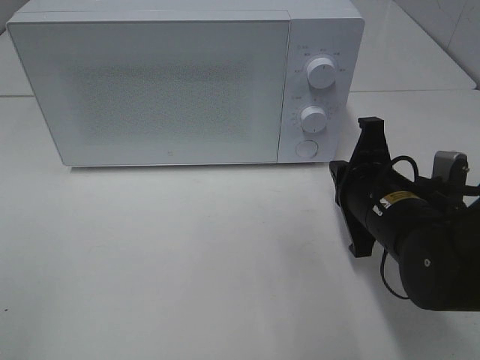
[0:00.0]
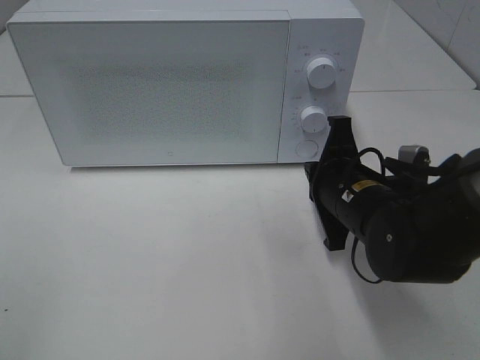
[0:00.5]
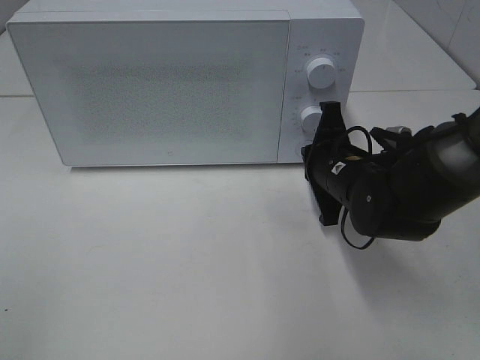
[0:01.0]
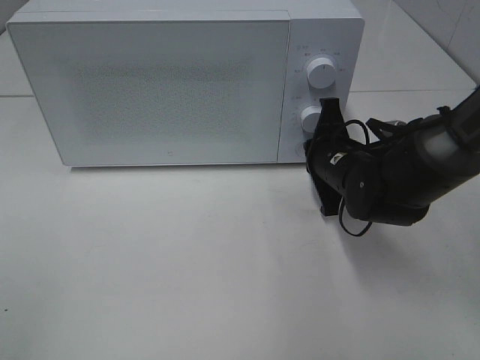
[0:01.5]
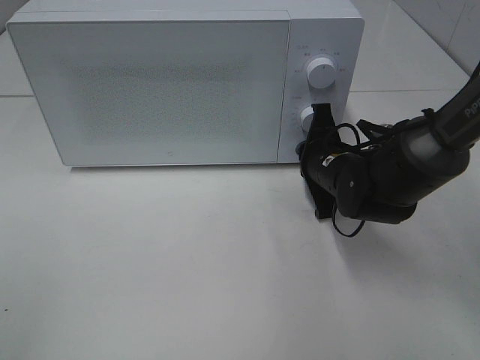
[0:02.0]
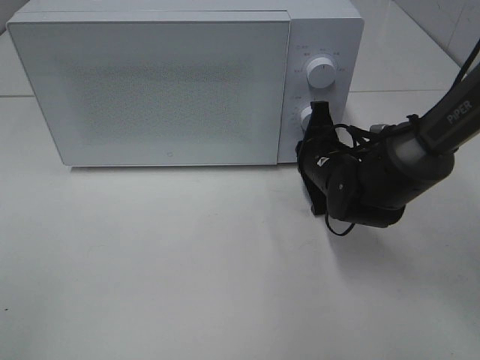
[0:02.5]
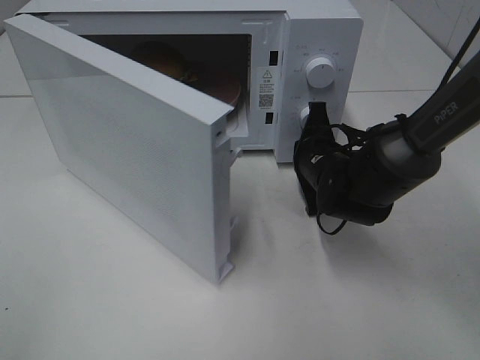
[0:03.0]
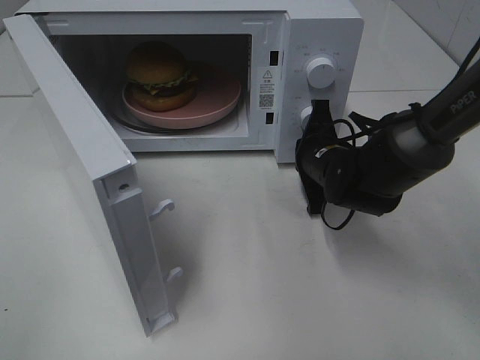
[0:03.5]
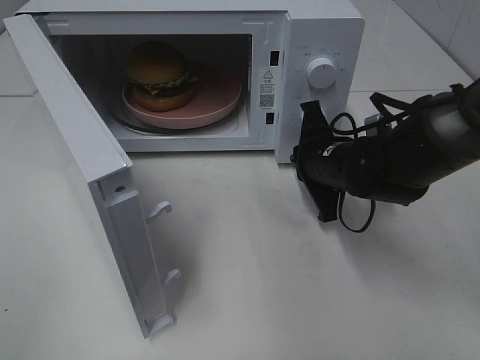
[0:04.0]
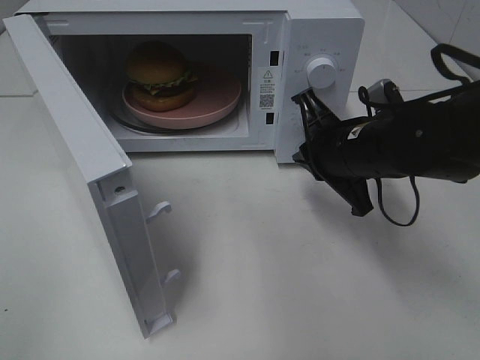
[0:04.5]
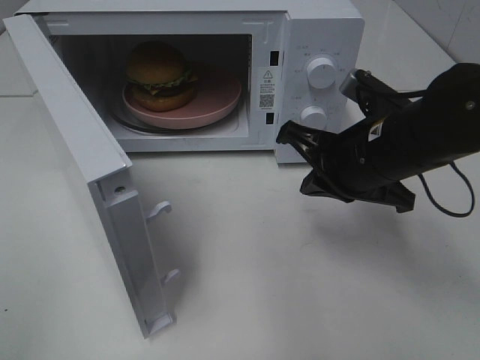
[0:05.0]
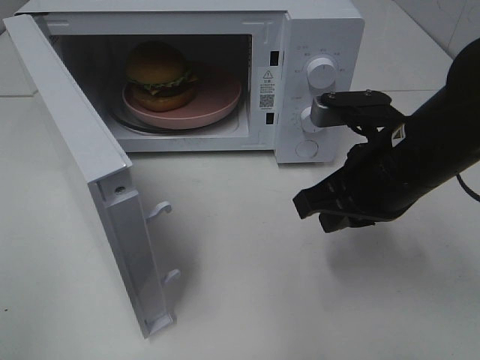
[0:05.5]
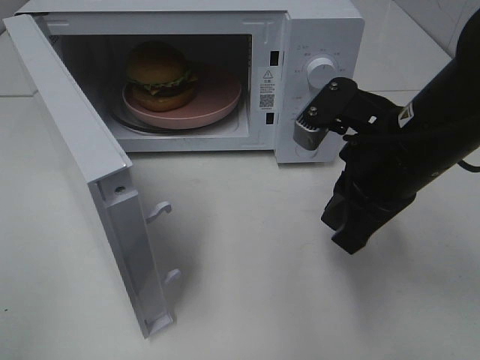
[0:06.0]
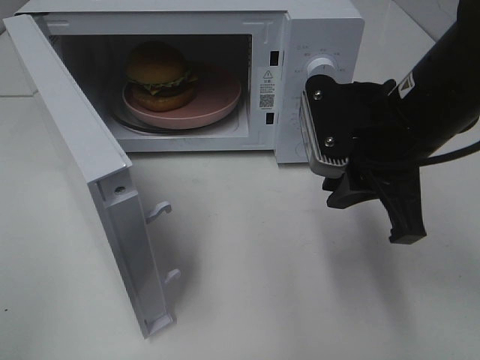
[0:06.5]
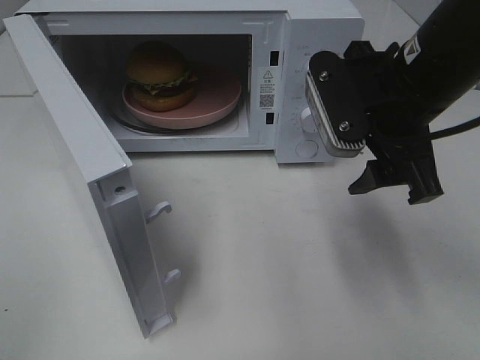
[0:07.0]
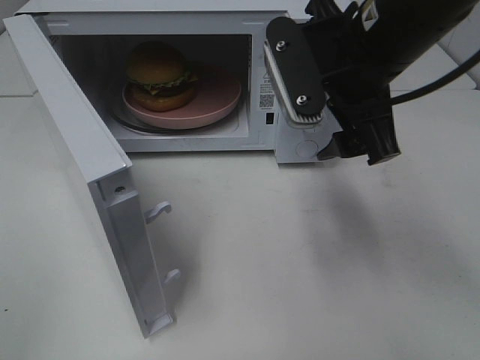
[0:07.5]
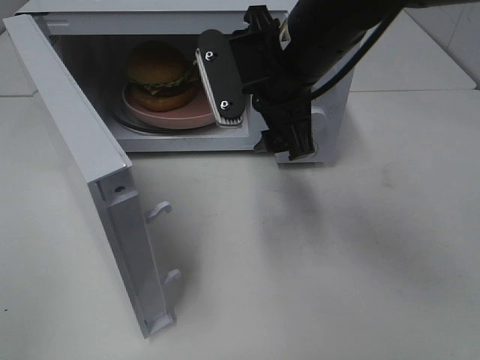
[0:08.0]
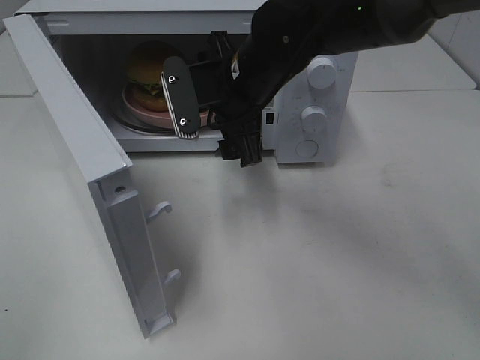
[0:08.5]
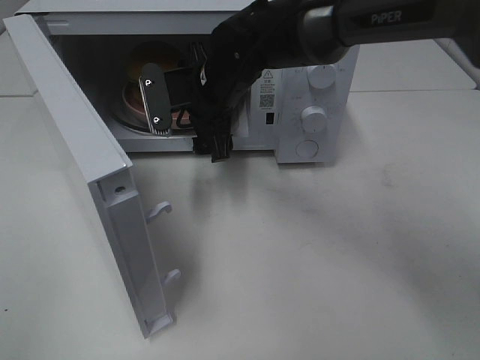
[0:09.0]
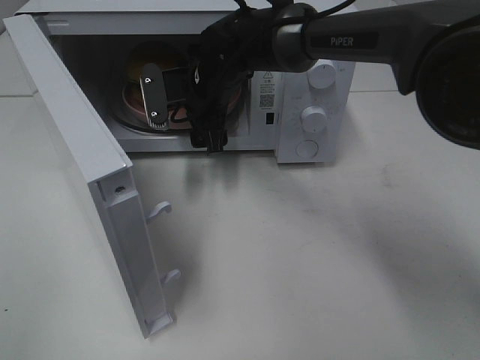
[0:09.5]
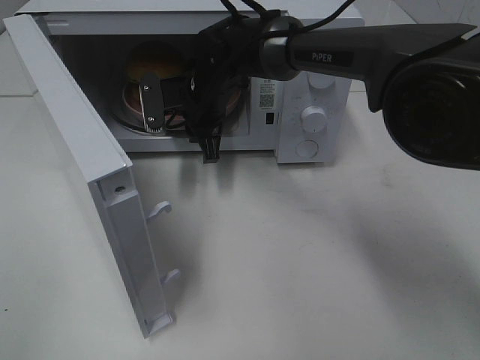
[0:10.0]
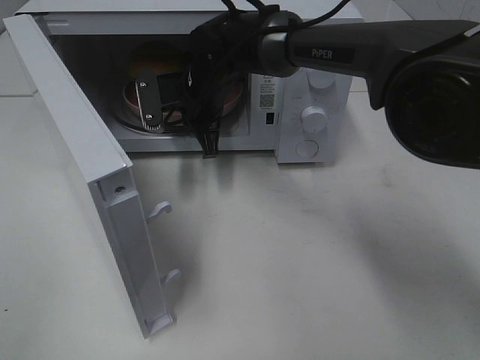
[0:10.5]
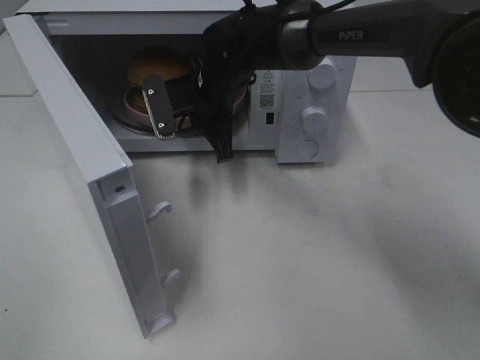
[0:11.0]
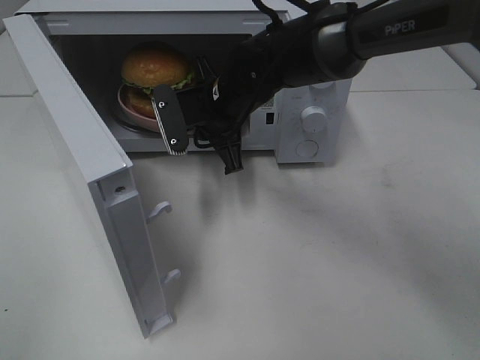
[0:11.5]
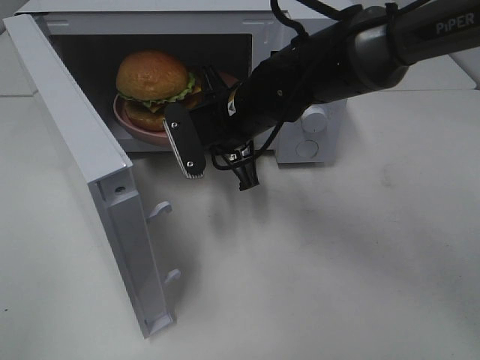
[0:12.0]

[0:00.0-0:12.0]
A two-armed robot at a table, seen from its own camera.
Task of the whole recording: Heat the burger.
Step, 0:00.0 to 0:04.0: Right hand: press the switch.
Step, 0:04.5 to 0:10.0: Right hand: grab the plate with the hamburger.
0:00.0 to 0:02.0: The right gripper moves forward, some 10 cm.
0:04.0 to 0:06.0: The right gripper moves upward and backward, roughly 15 cm.
0:06.0 to 0:08.0: The right gripper goes approximately 10 cm to the left and forward, and opens its fingers.
0:08.0 to 0:10.0: The right gripper is displaced forward, downward and to the left by roughly 20 cm, and closes.
0:10.0 to 0:12.0: The right gripper travels backward by about 10 cm.

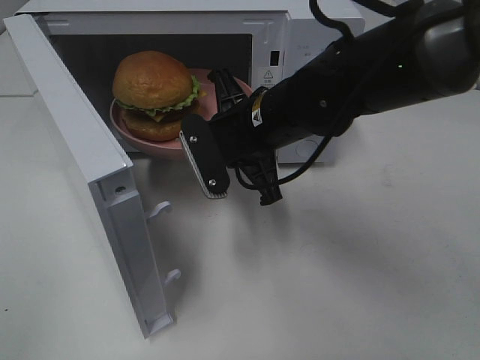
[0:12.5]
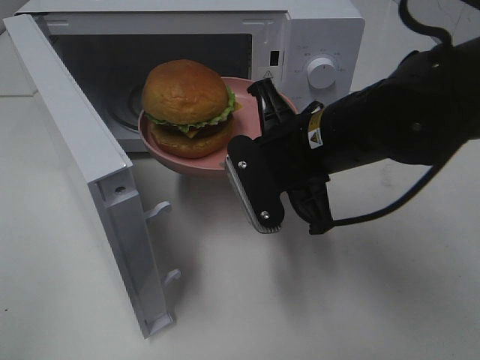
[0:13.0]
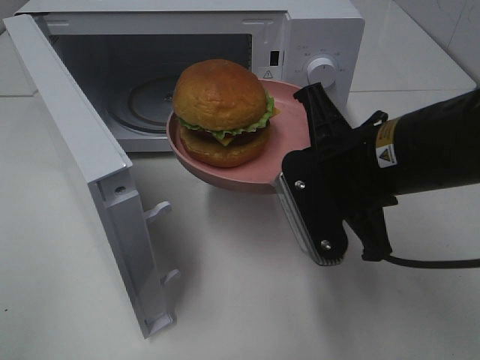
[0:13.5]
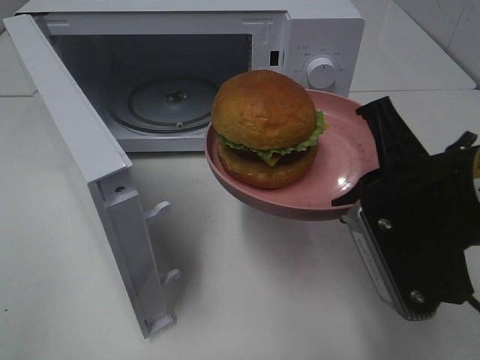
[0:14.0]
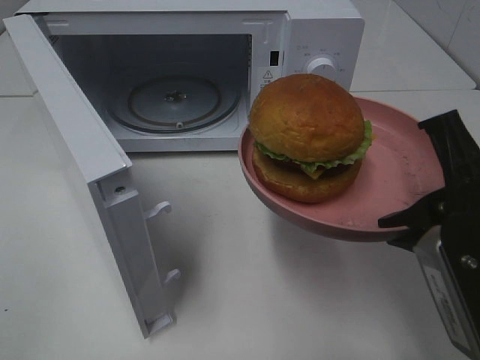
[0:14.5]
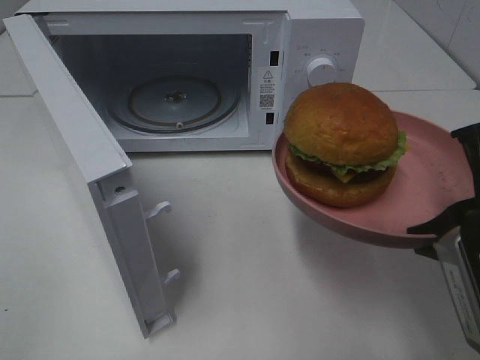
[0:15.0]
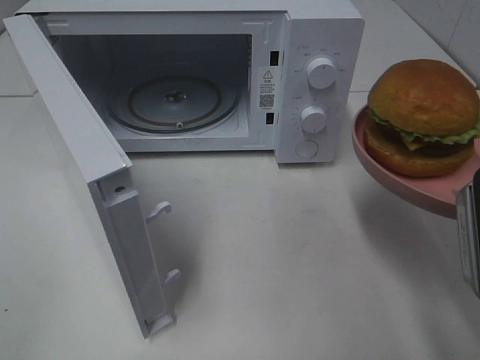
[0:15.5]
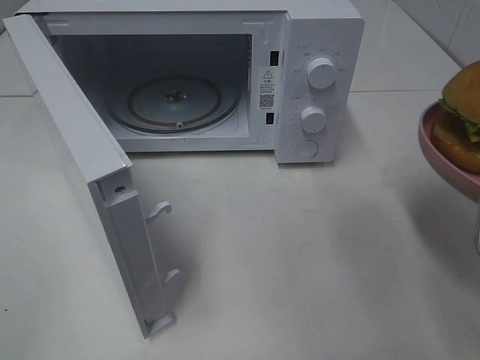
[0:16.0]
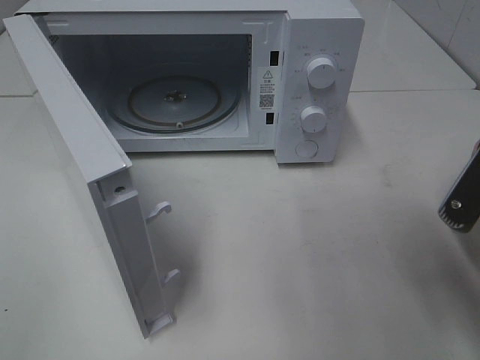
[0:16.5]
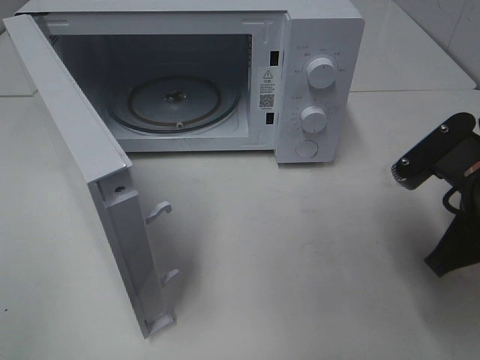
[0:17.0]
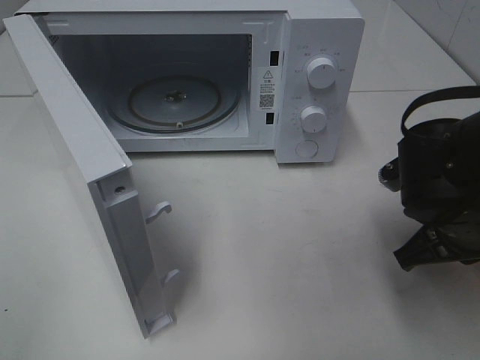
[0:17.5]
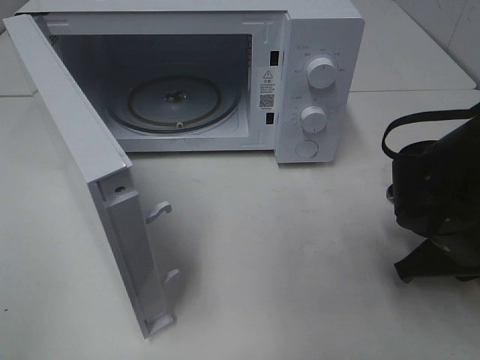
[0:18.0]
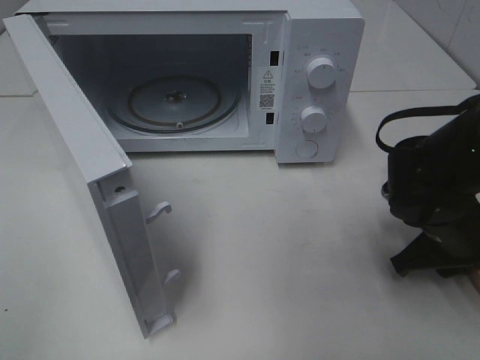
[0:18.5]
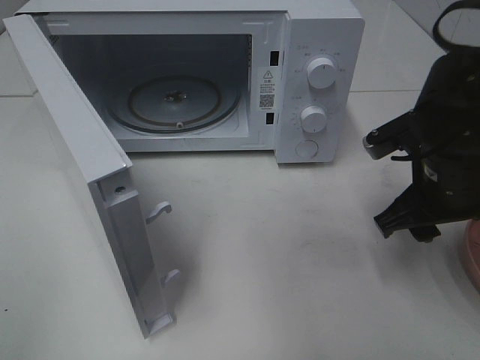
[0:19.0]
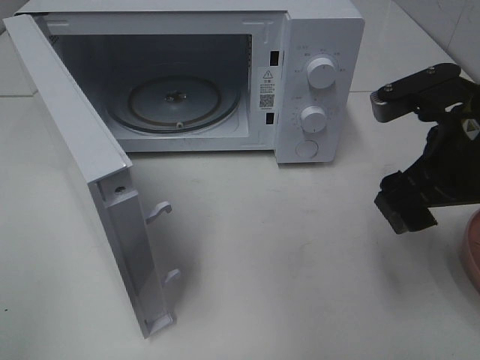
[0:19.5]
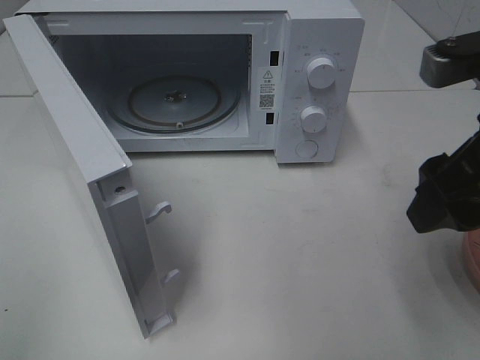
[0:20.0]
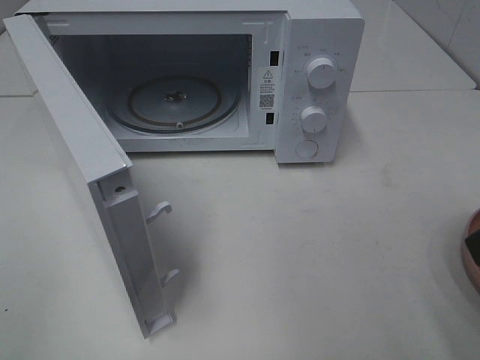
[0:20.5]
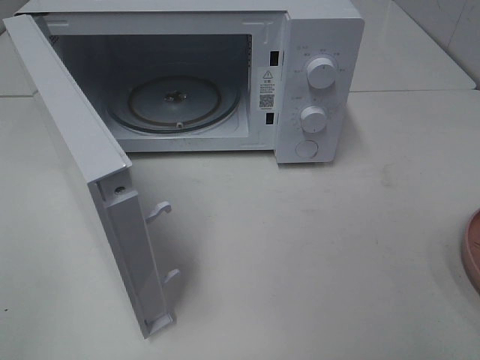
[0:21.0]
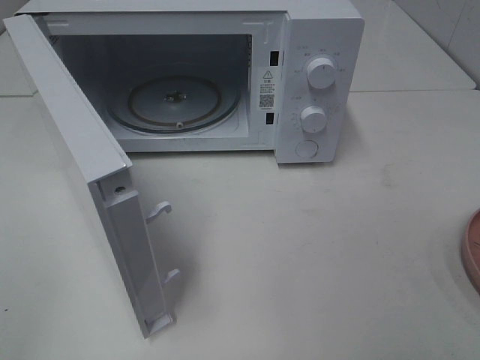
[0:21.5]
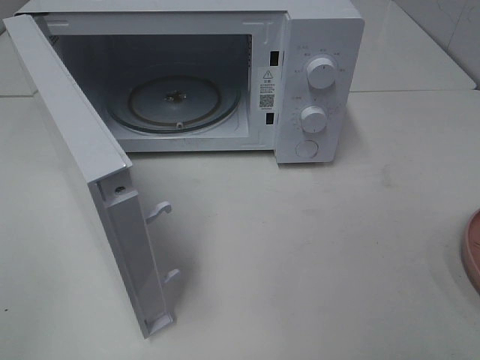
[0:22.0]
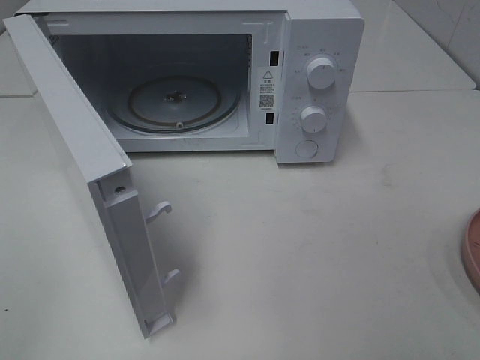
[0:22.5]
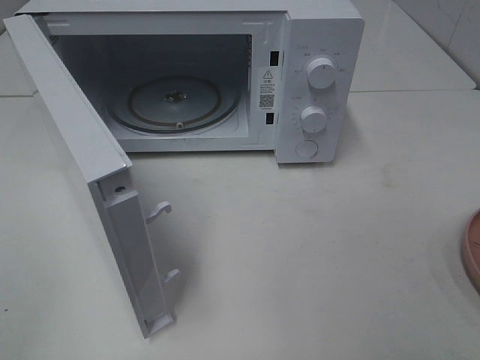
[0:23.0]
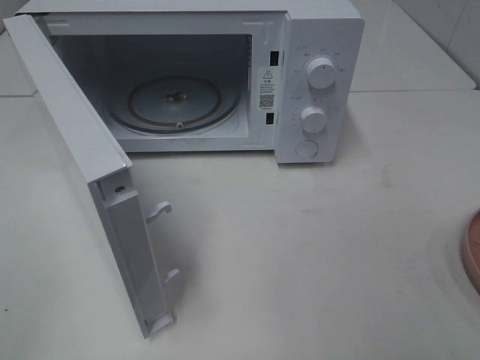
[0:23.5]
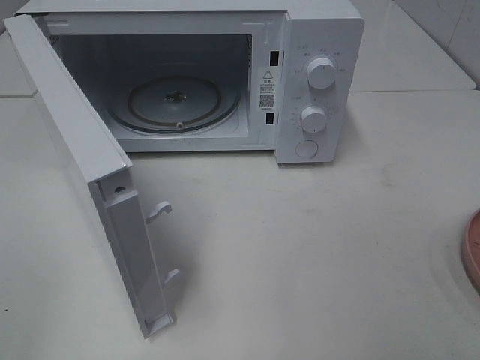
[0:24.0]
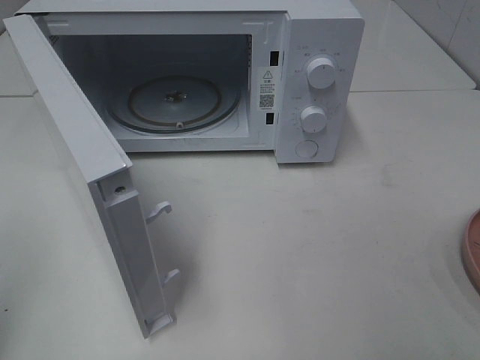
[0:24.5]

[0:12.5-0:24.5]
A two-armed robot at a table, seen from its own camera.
Task of the whole recording: Heat the burger.
Step, 0:12.5 to 0:18.5: Right hand: place the plate on the table.
0:12.5 to 0:14.5: The right gripper moves backward and to the right, approximately 25 cm.
0:14.5 to 0:16.5: The right gripper shifts by roughly 5 cm.
0:16.5 to 0:18.5: The right gripper heads downward and forward, covering approximately 15 cm.
0:18.5 to 0:20.5: The right gripper moves upward and backward, about 25 cm, and opens up.
0:20.5 to 0:22.5: The right gripper heads backward and to the right, covering about 15 cm.

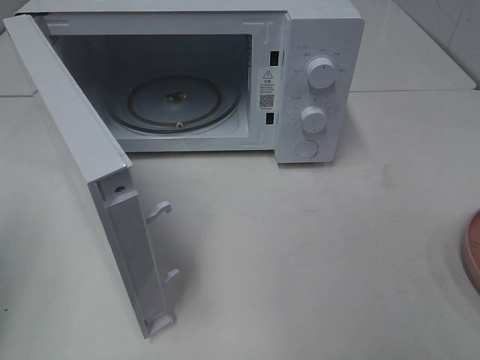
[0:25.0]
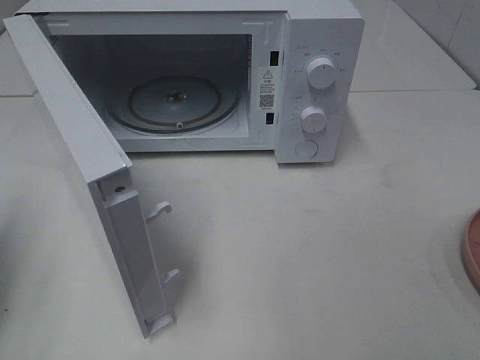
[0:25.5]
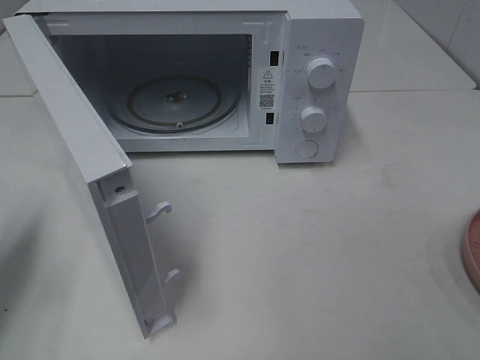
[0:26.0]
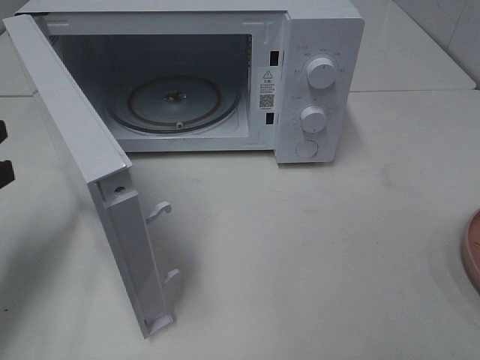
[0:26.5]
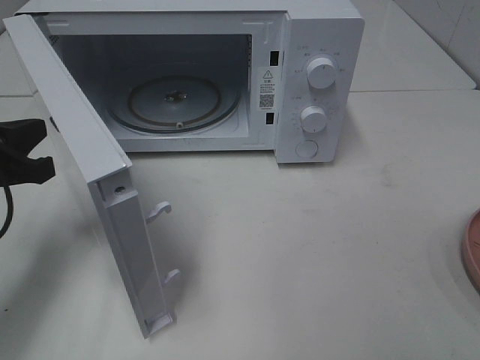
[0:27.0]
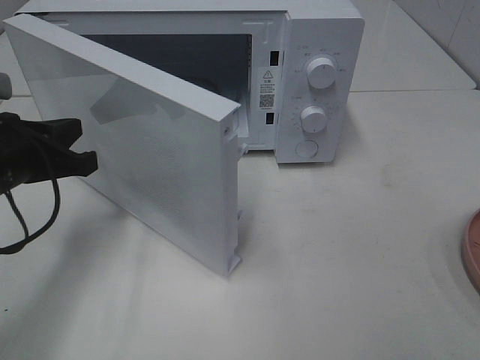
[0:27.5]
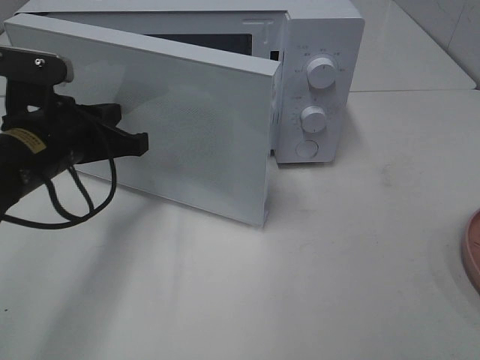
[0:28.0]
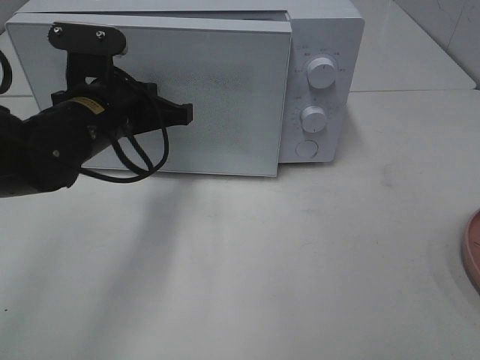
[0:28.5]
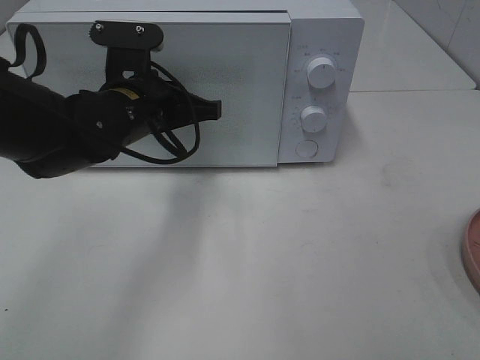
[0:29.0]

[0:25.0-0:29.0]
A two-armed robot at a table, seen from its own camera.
Task of the whole recording: Heat the burger.
0:25.0 to 0:27.0: The left gripper travels forward, downward and to the right by about 15 cm.
0:27.0 to 0:29.0: The left gripper goes some 20 cm to the right and forward.
